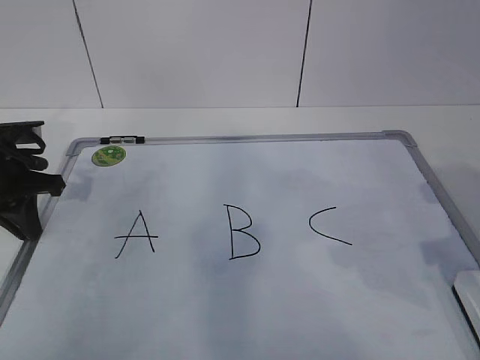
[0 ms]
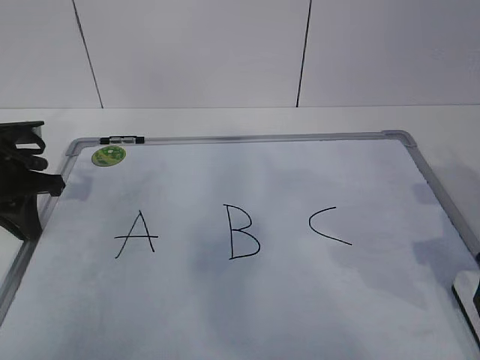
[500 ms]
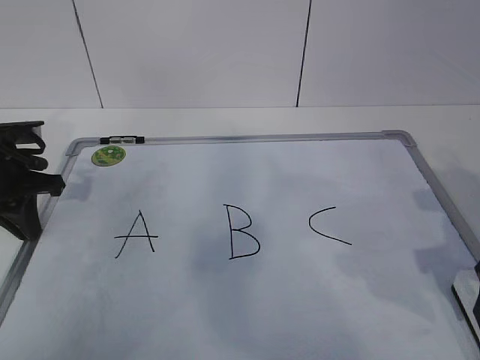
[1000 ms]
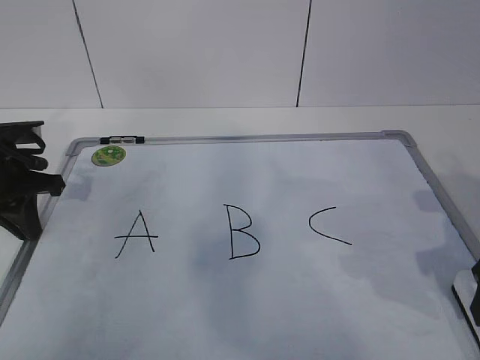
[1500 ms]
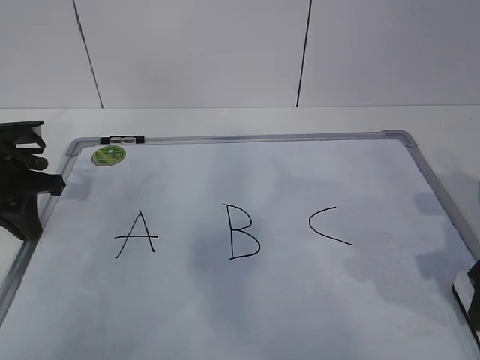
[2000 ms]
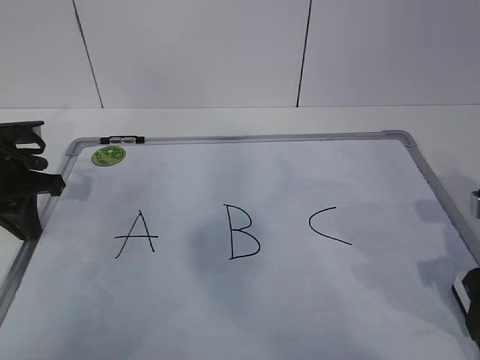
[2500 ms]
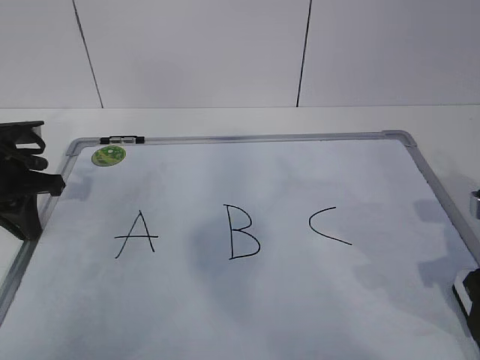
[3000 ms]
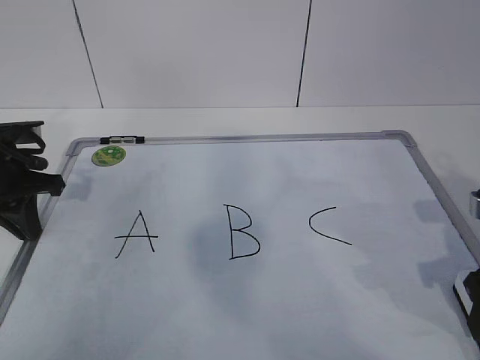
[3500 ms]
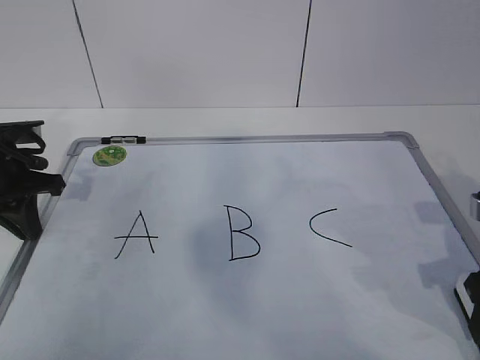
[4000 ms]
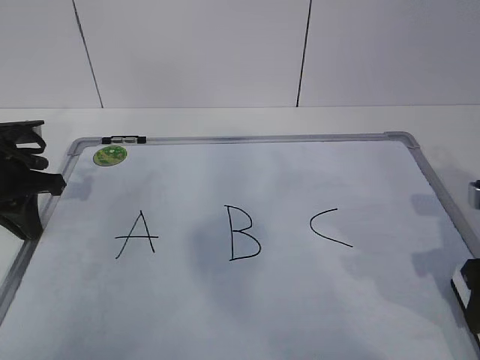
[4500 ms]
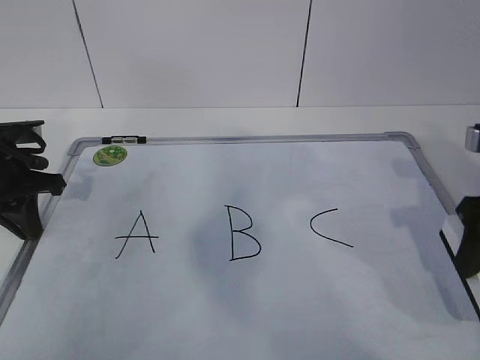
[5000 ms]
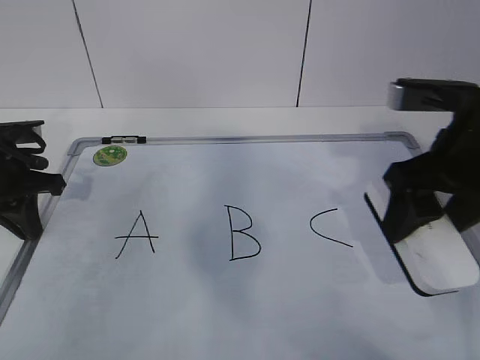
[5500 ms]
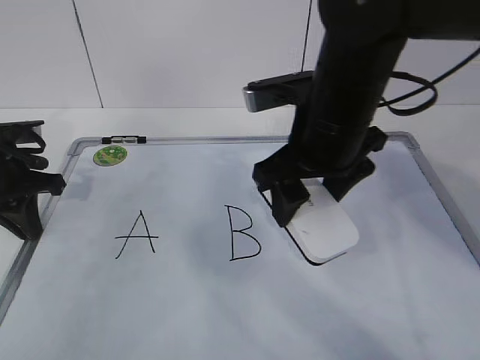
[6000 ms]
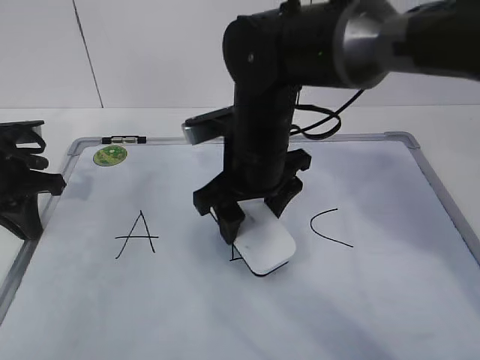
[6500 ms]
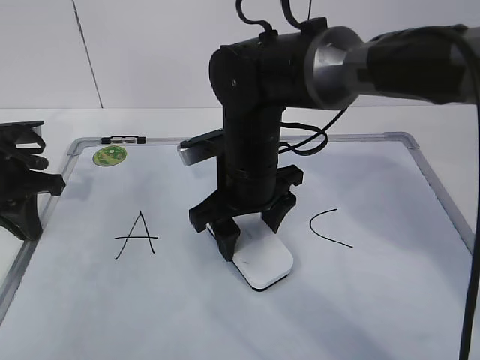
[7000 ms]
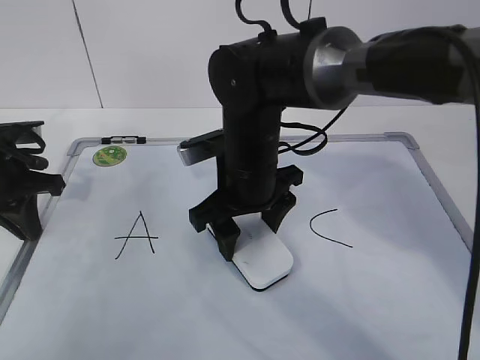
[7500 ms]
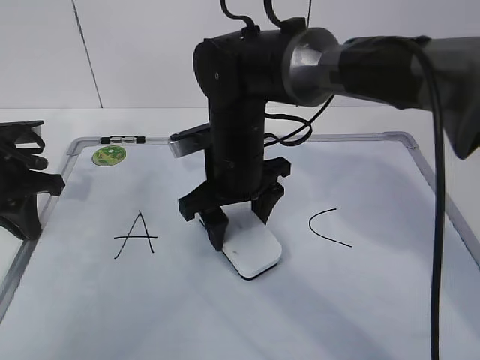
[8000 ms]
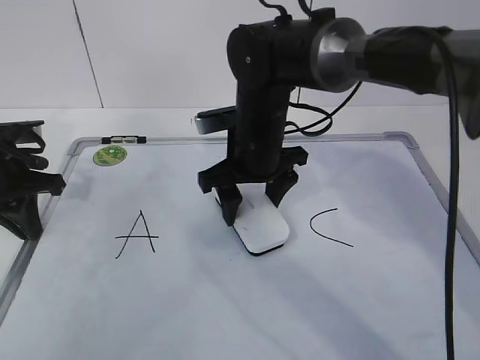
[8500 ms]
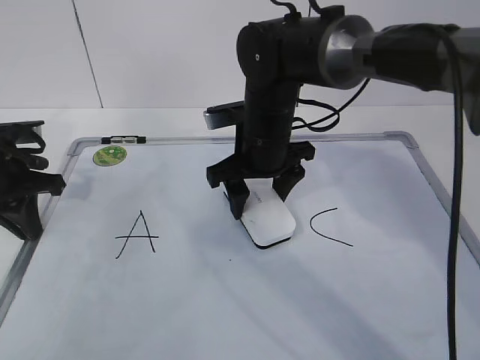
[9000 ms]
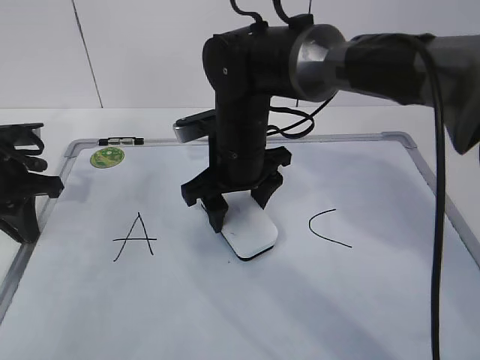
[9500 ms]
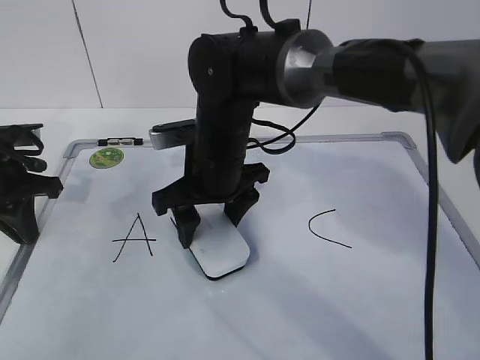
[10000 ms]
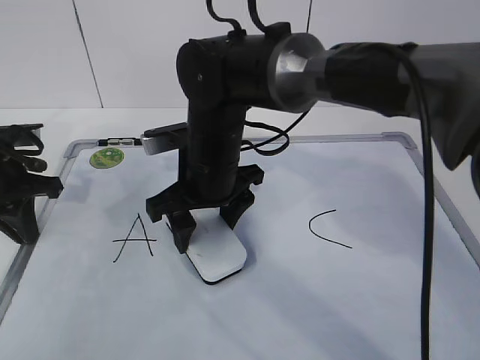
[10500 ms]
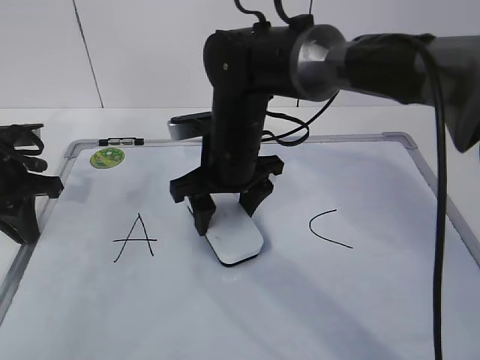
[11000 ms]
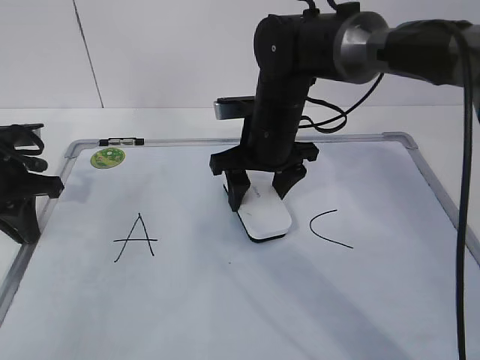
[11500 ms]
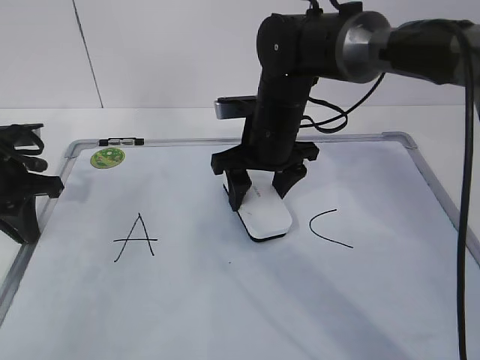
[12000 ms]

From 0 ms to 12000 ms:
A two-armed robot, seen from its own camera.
Task of the whole recording: pick up the eraser on the blackboard and erase the letter "B".
Step, from 2000 ms to 11000 ms: Erase the letter B with your right hand.
From 2000 ms to 4000 ms: The right gripper closes its fingers.
From 4000 ms to 6000 ms: The right gripper travels to the left, forward and upward by about 20 cm.
From 6000 ms to 8000 ms: The right gripper moves to the left, downward and forward, some 15 cm.
From 8000 ms to 10000 ms: The grippers make only small movements.
From 10000 ms to 12000 ms: The right gripper goes about 10 cm to the right and forward.

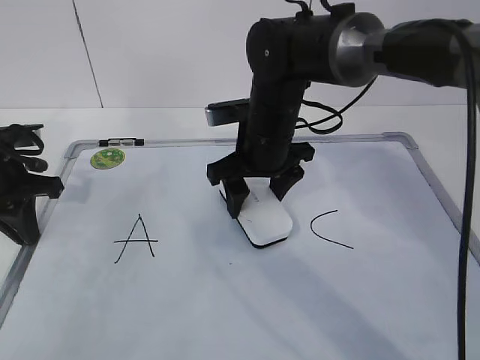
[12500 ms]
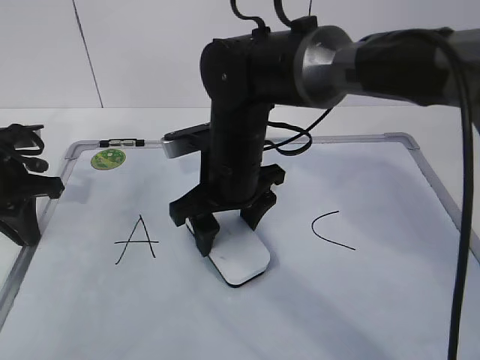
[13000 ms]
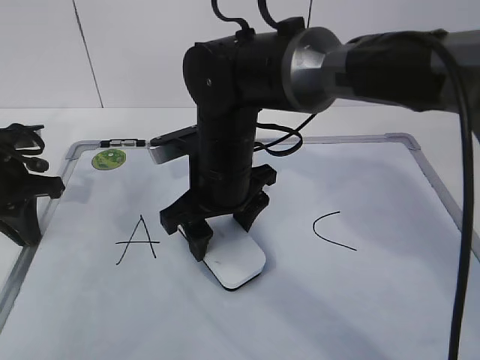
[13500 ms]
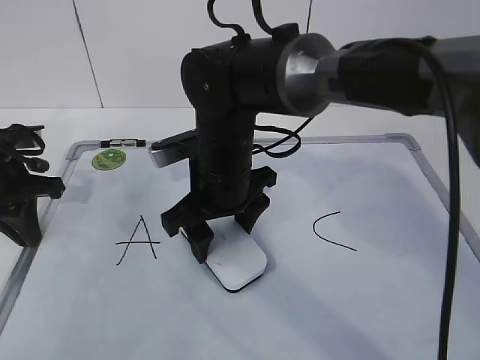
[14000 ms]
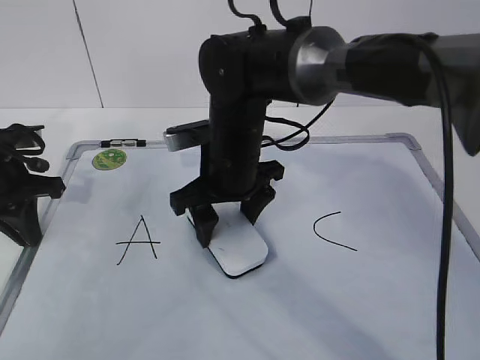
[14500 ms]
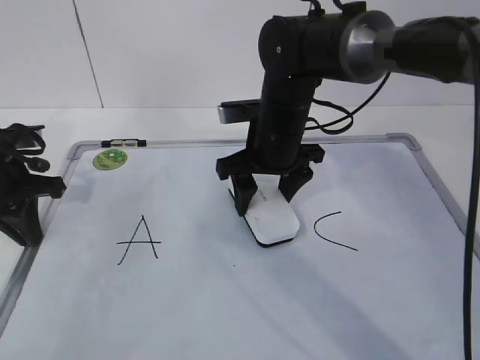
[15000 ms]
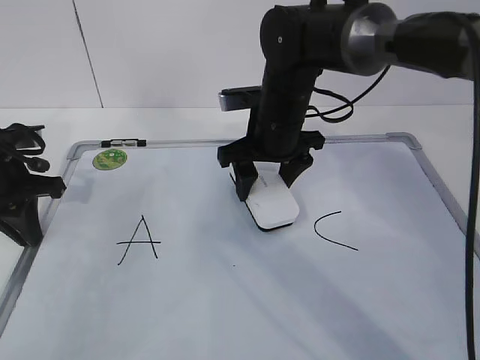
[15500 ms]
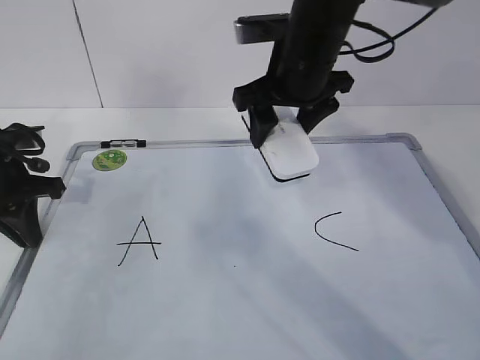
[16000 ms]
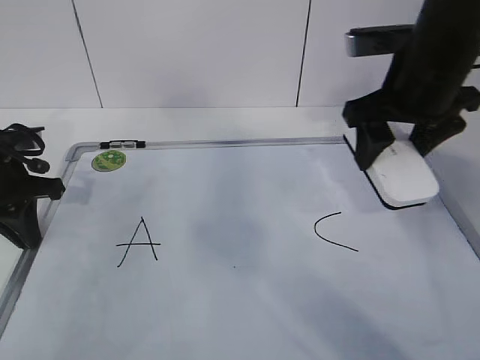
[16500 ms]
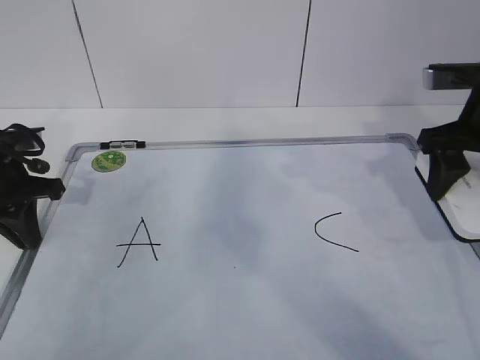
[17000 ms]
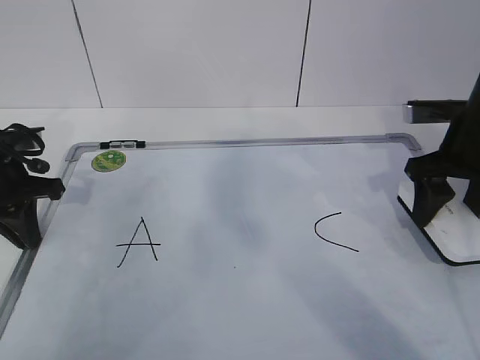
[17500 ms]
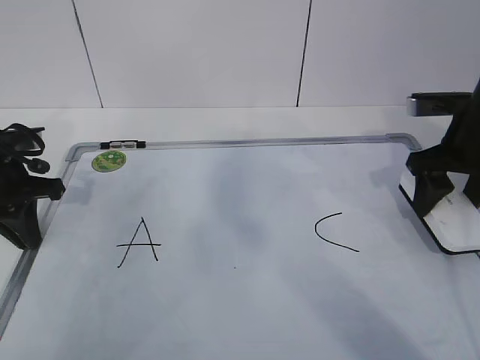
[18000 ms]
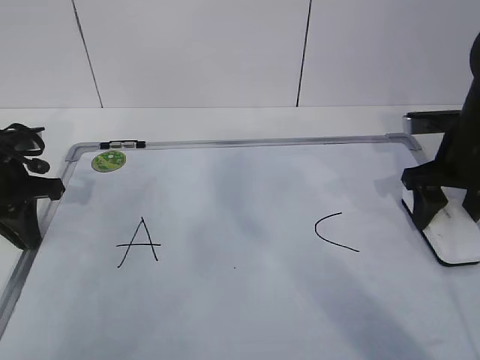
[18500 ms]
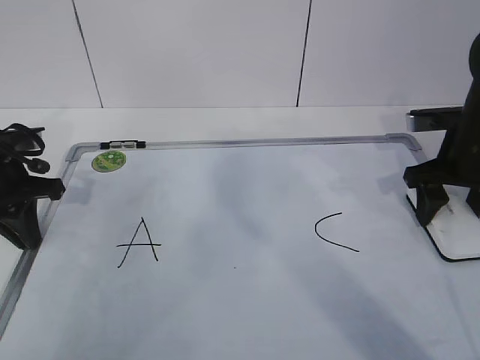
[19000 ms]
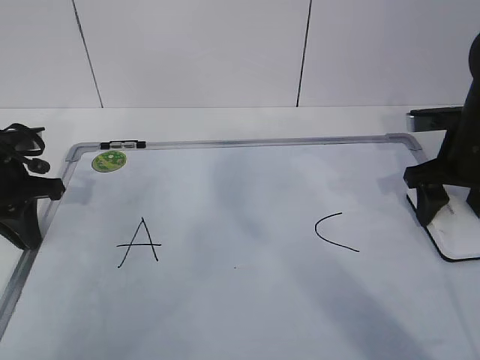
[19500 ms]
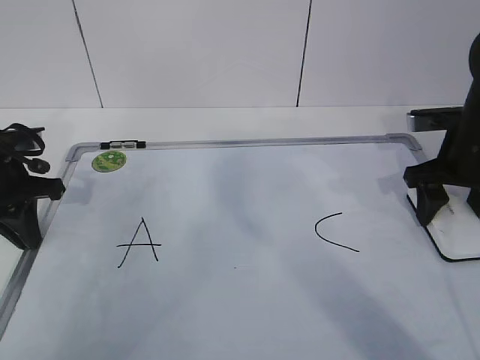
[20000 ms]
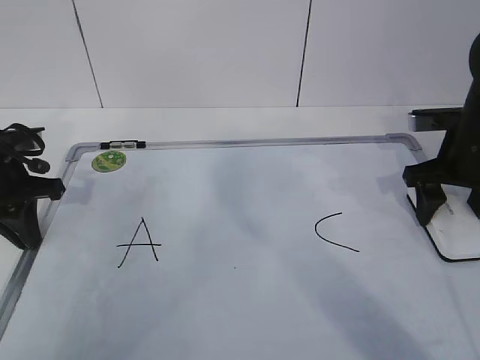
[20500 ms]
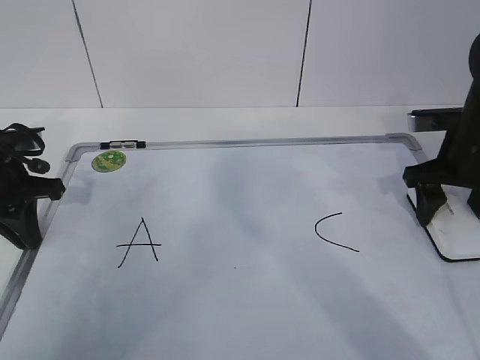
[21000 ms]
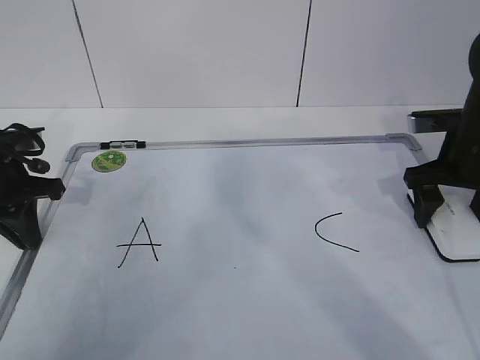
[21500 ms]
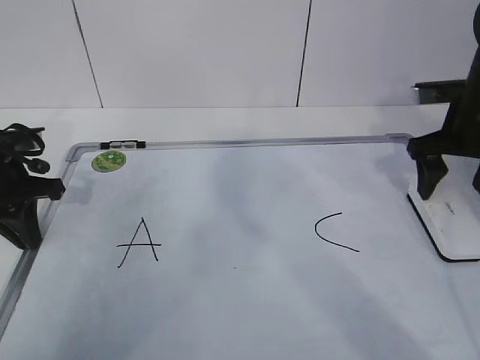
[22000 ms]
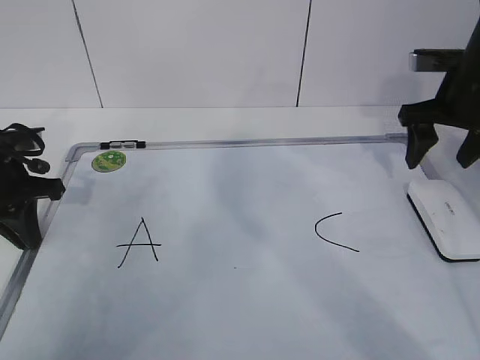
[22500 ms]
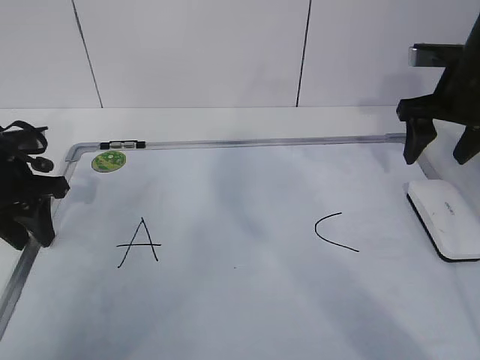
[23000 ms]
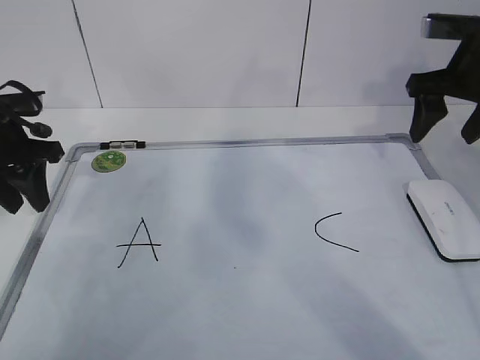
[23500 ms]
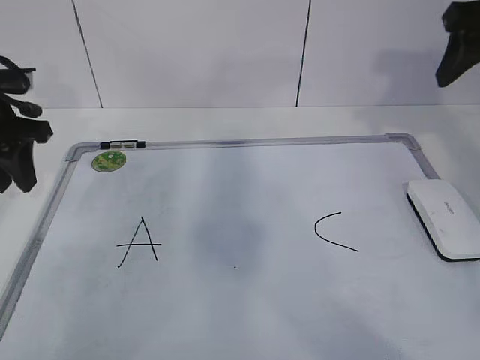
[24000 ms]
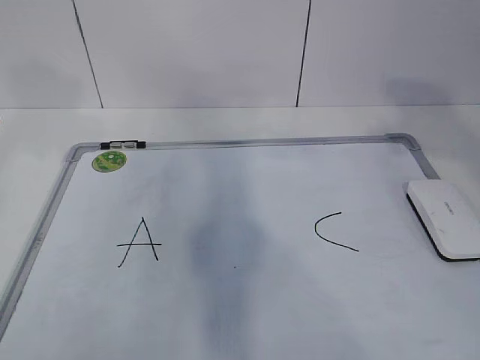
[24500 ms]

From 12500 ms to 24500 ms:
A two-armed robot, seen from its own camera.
Task of the whole recording: pick up the eraser on the blackboard and erase the letter "B".
Step, from 12500 ms to 16000 ms: Put down the eraser with your right hand.
From 12500 ms to 14500 ms: The right gripper ends up some 5 cm from where it was.
From 14500 ms to 16500 ms: The right gripper travels to the right and upward by about 20 cm.
From 16500 ms to 18500 ms: The right gripper is displaced to the right and downward by some 15 cm.
From 18500 ms to 20500 ms: The grippers move only a little.
From 20500 ms to 22500 ms: The right gripper goes approximately 5 cm upward.
From 22500 ms to 24500 ms: The left gripper travels upward by about 15 cm, and opens up; the right gripper heads upward and backward, covering some 20 cm, and closes its fingers.

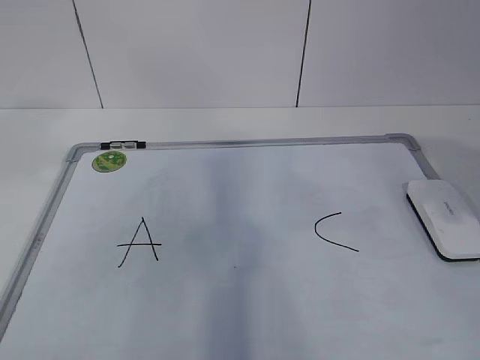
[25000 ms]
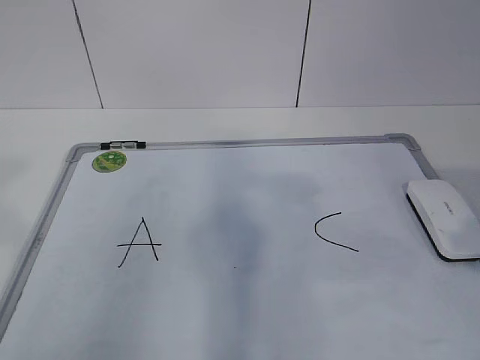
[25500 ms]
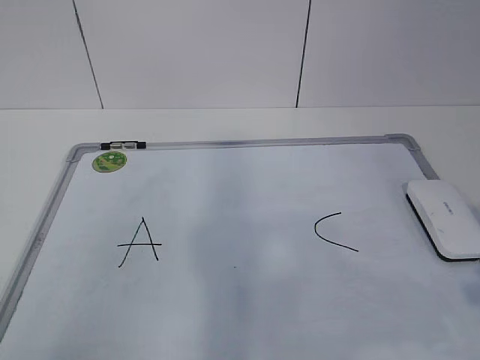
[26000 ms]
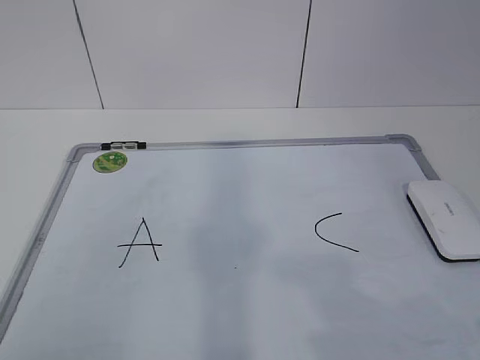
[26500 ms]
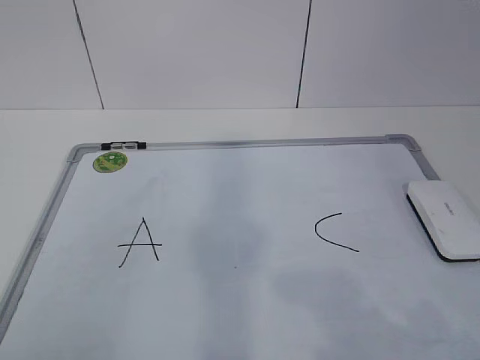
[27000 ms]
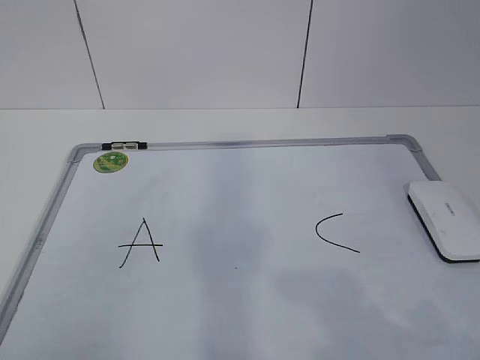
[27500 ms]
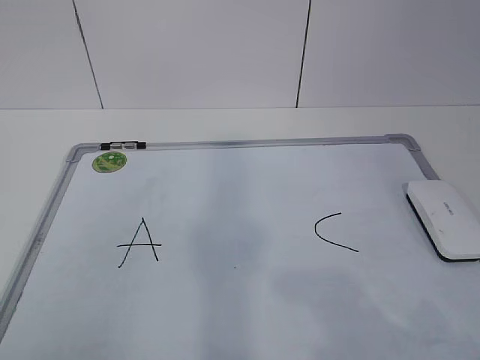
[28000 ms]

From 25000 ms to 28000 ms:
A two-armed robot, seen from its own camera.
Task of the whole recording: pick up the eraser on the blackboard and erase the letter "B".
From 25000 ms to 26500 ms: The grippers both shift backward and downward by some 20 cm. The right gripper closes up.
